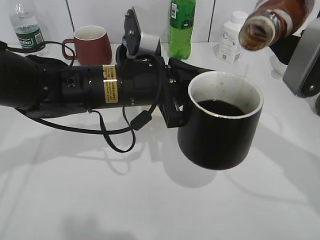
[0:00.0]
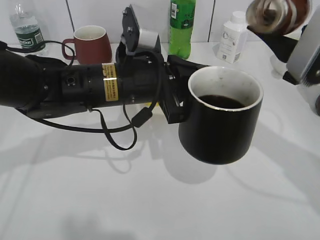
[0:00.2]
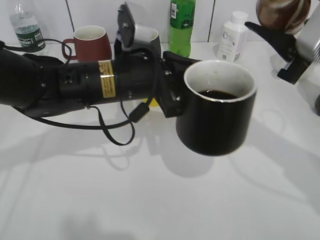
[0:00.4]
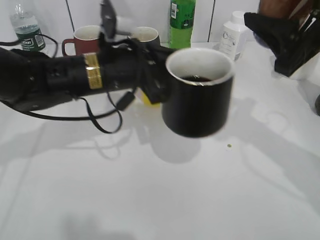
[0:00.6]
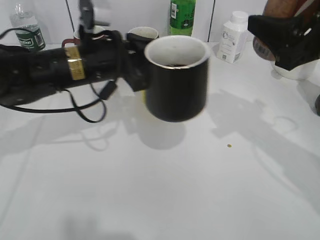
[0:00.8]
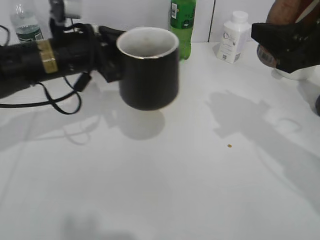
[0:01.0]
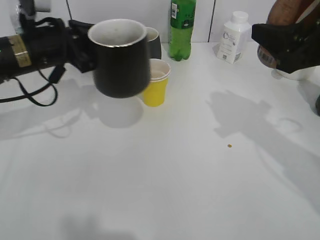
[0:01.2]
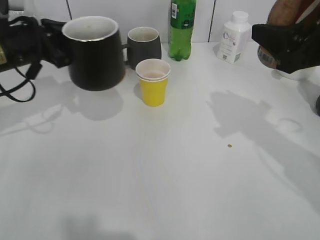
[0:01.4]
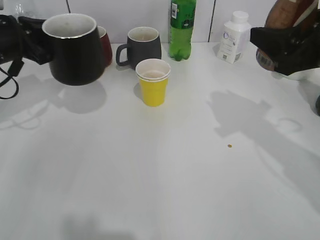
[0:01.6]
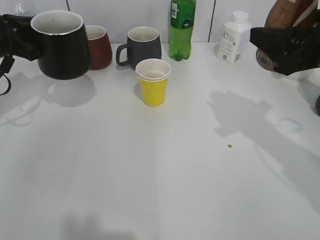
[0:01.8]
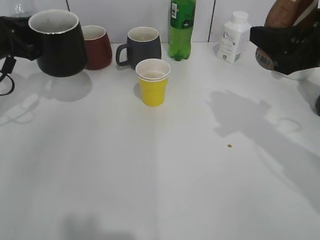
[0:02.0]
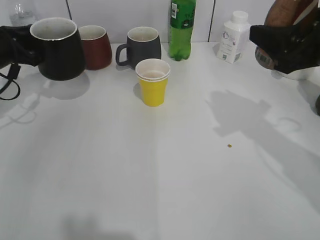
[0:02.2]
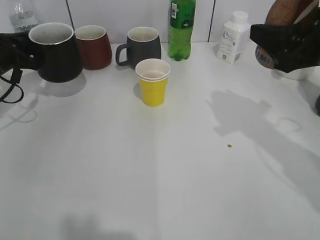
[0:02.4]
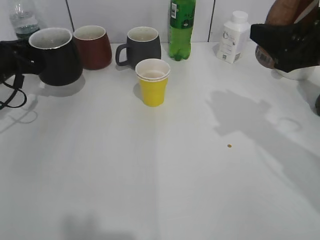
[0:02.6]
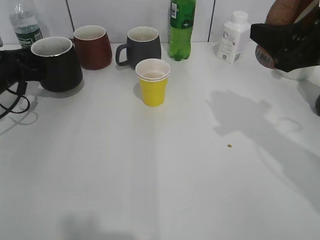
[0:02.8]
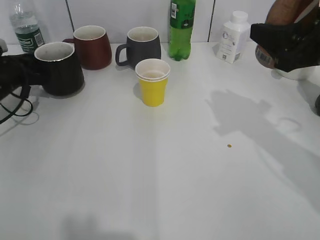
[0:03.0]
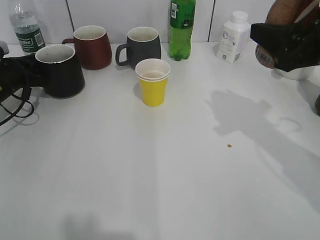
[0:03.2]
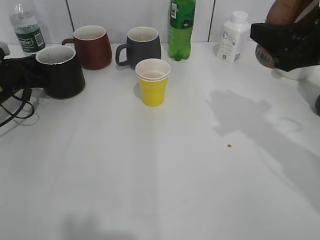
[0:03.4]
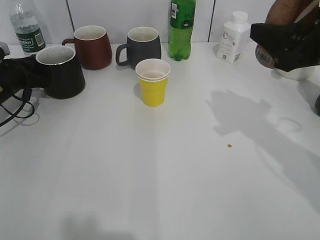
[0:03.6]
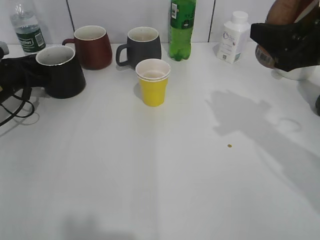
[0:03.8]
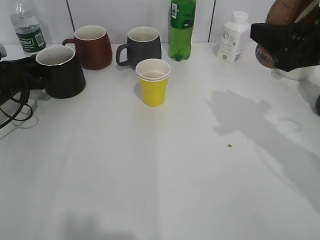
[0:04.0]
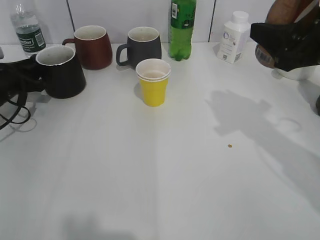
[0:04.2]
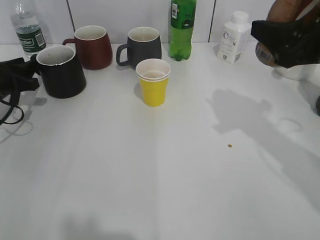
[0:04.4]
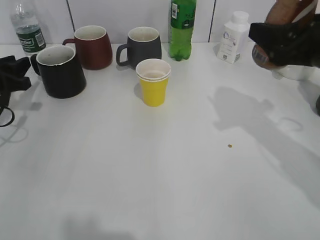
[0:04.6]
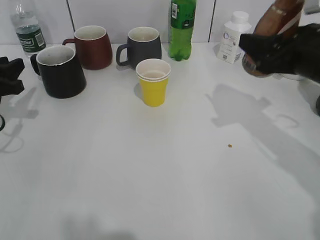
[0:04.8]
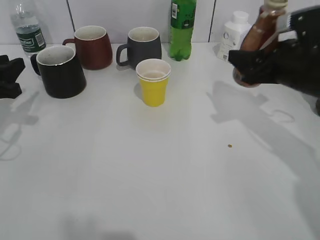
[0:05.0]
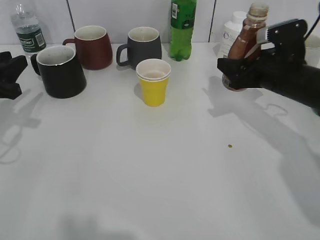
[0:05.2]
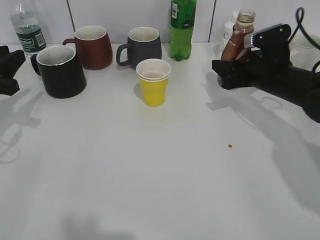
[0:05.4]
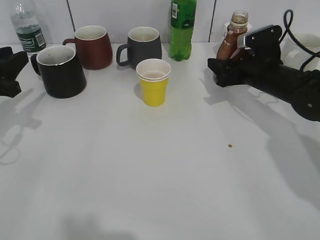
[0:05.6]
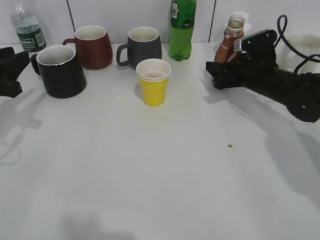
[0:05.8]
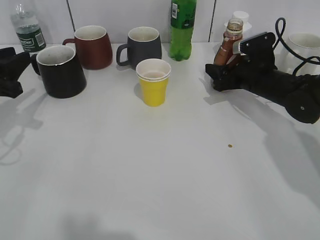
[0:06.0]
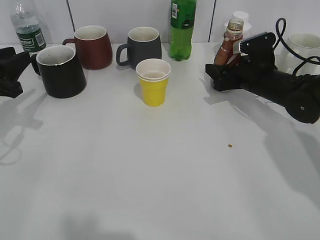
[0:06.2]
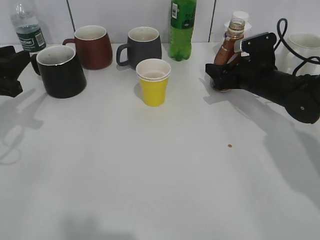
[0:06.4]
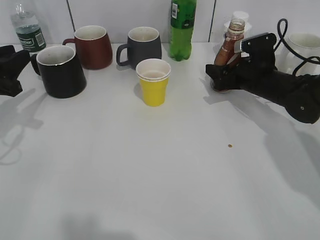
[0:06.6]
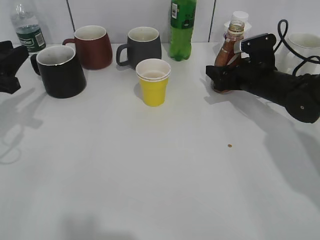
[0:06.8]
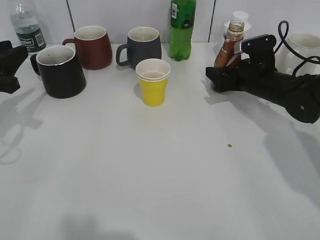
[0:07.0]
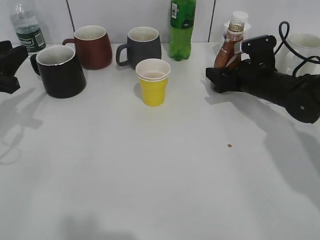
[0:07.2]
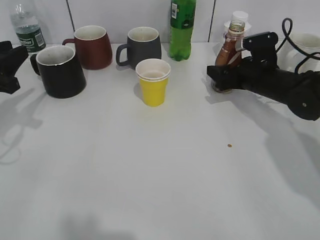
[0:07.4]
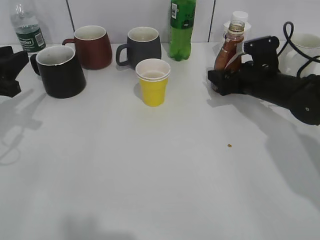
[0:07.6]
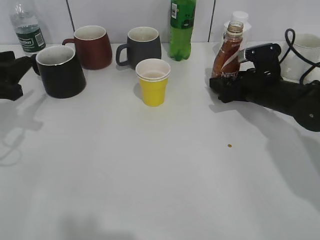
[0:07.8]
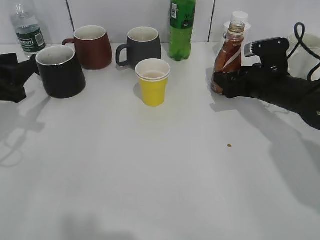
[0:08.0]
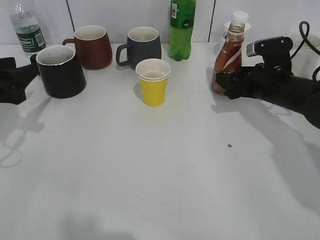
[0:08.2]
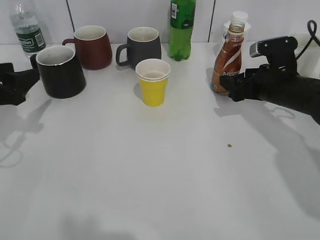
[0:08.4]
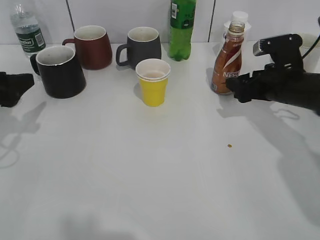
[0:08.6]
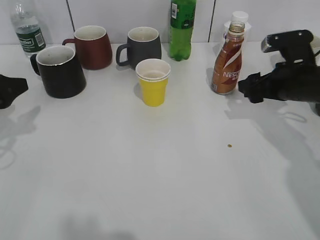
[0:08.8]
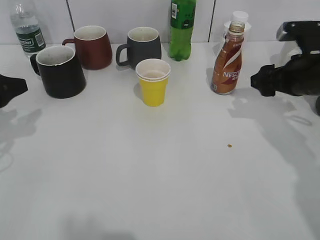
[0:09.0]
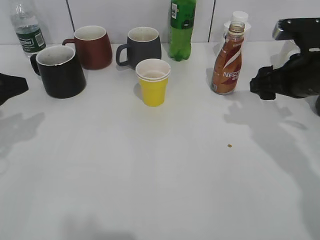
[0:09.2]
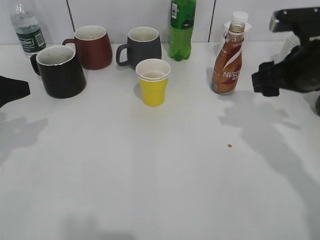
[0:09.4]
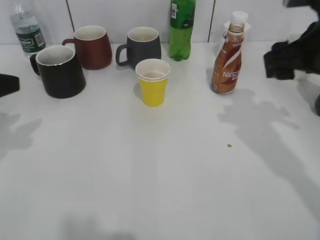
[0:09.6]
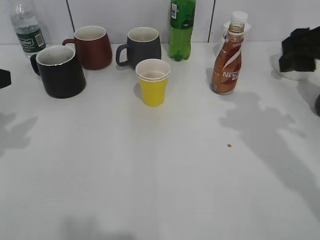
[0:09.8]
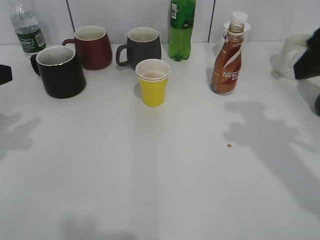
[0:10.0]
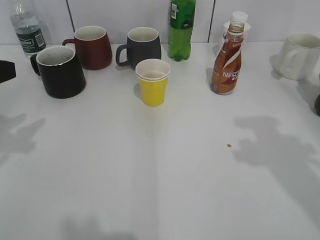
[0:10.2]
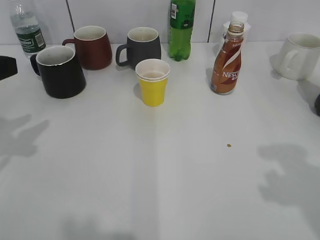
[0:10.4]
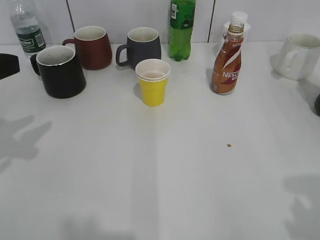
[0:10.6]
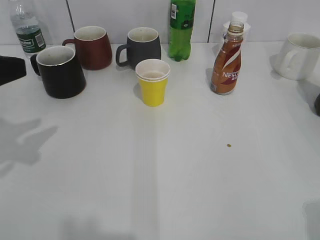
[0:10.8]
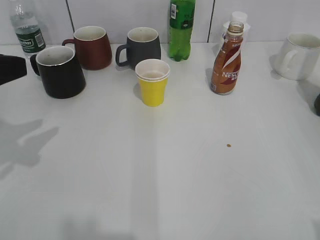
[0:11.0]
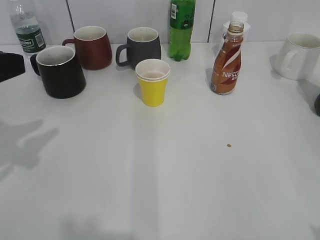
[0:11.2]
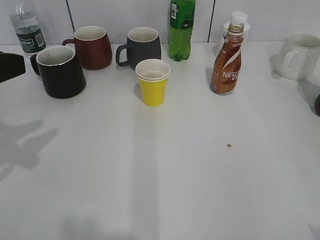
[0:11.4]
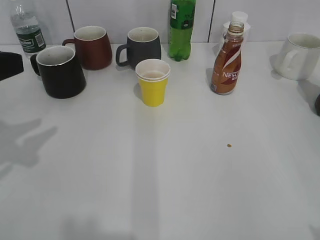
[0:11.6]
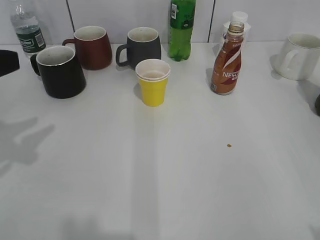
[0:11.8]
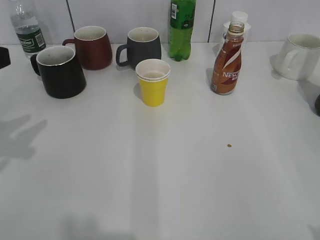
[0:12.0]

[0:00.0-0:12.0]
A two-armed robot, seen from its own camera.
Step, 0:00.2 to 0:04.4: Place the black cup on the table with left gripper.
Step, 0:04.8 to 0:08.0: Place the coffee bottle on the table with right gripper.
0:00.0 to 0:01.6: The left gripper moves to the left and forward, approximately 25 cm.
0:01.6 to 0:03.0: The left gripper goes approximately 10 cm downward and to the left.
0:03.0 to 0:04.4: The left gripper opens its fingers.
0:04.4 to 0:06.0: The right gripper heads downward and forward, covering roughly 20 cm. Meanwhile the left gripper heads backward and upward, covering roughly 10 cm.
0:06.0 to 0:07.6: The right gripper opens up.
0:07.6 to 0:09.0: The right gripper goes about 10 cm backward and upward, while the left gripper opens.
0:09.0 to 0:10.4: The right gripper shifts approximately 25 cm backward and upward, while the left gripper shifts roughly 10 cm upward and backward.

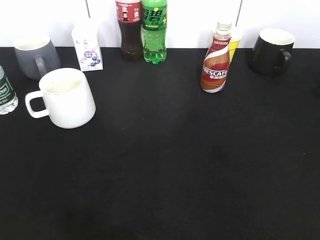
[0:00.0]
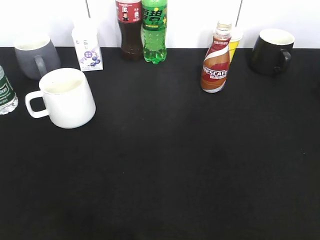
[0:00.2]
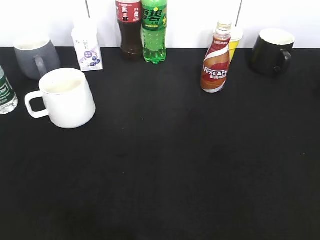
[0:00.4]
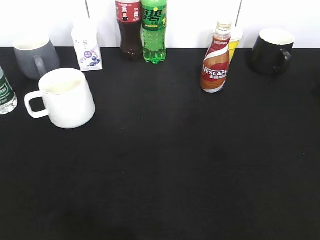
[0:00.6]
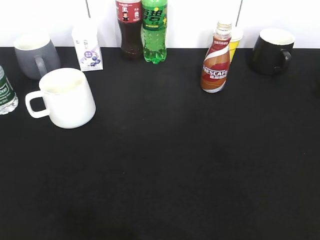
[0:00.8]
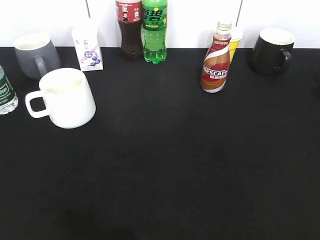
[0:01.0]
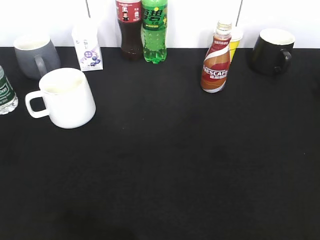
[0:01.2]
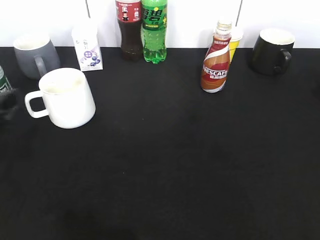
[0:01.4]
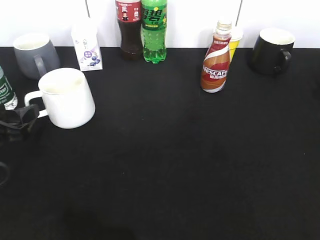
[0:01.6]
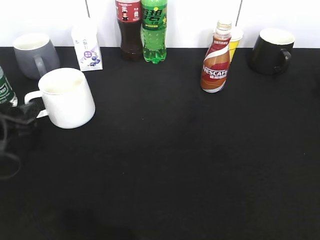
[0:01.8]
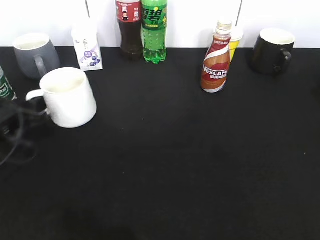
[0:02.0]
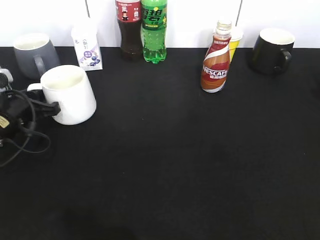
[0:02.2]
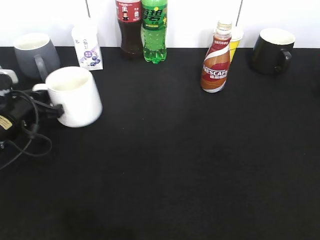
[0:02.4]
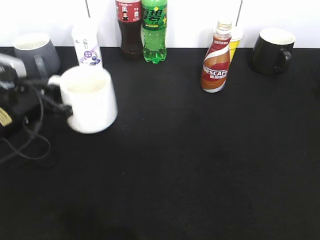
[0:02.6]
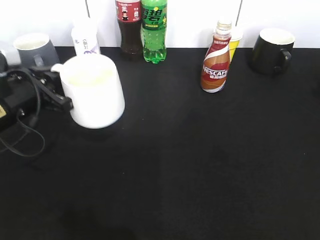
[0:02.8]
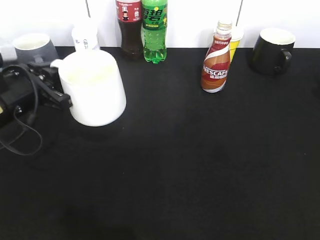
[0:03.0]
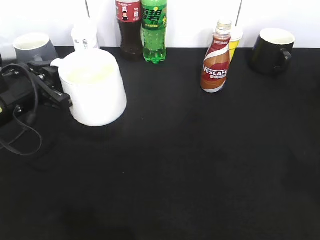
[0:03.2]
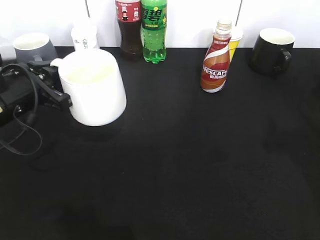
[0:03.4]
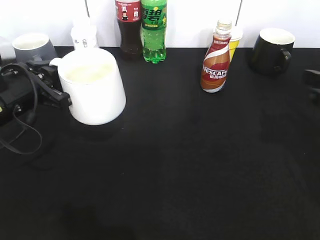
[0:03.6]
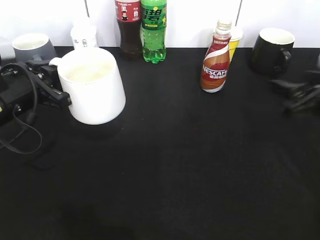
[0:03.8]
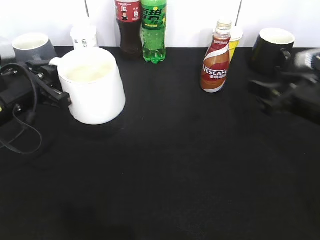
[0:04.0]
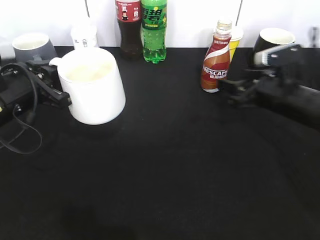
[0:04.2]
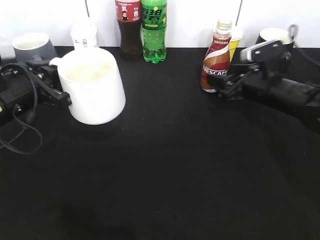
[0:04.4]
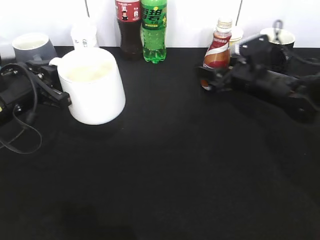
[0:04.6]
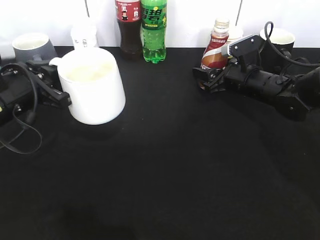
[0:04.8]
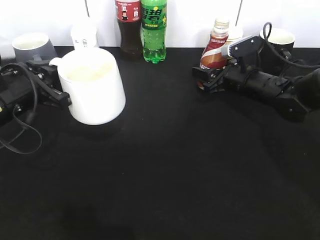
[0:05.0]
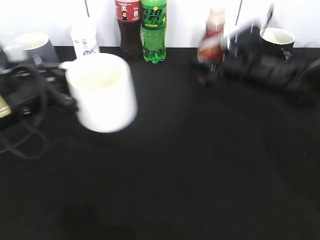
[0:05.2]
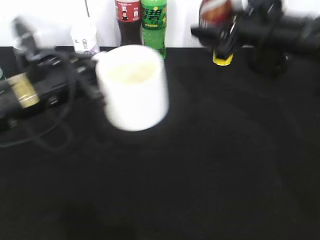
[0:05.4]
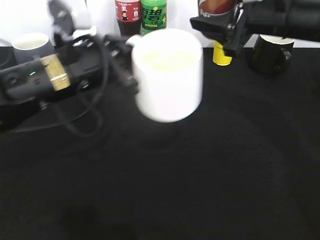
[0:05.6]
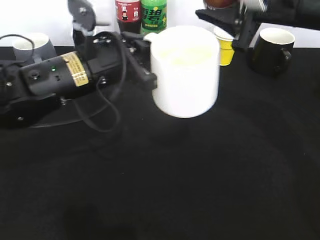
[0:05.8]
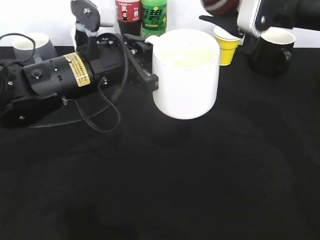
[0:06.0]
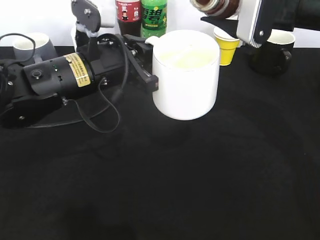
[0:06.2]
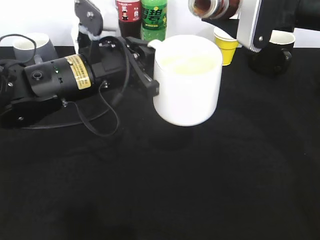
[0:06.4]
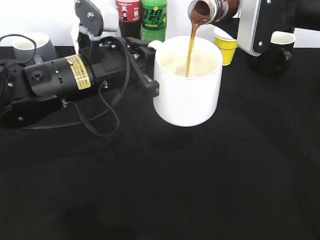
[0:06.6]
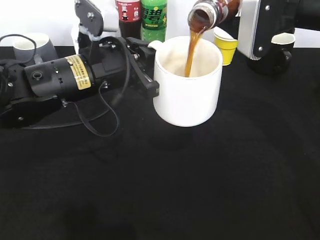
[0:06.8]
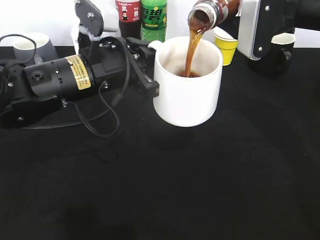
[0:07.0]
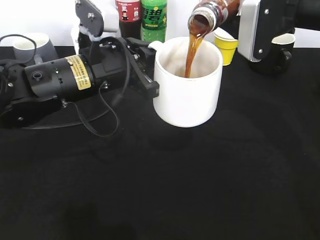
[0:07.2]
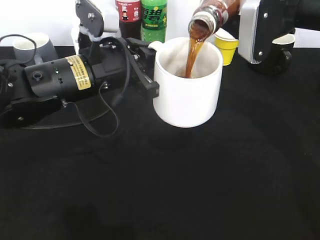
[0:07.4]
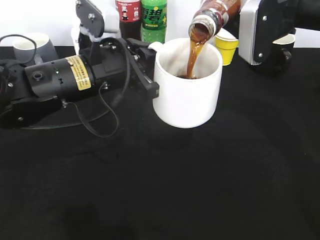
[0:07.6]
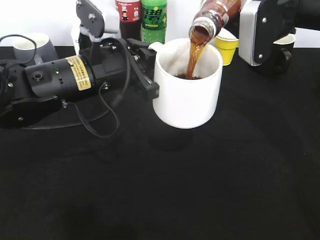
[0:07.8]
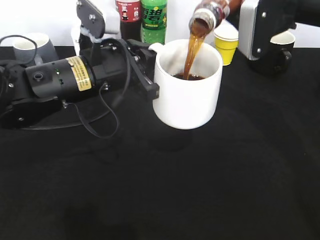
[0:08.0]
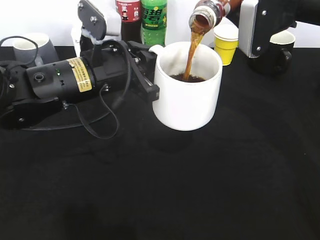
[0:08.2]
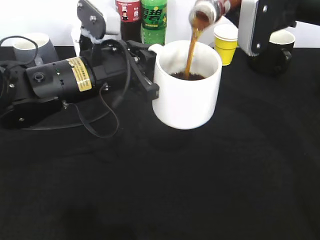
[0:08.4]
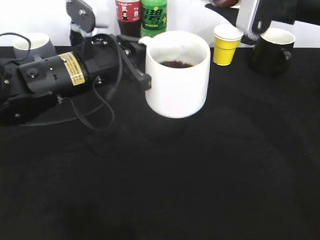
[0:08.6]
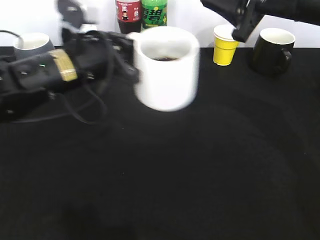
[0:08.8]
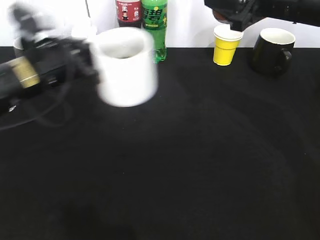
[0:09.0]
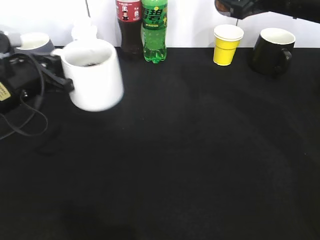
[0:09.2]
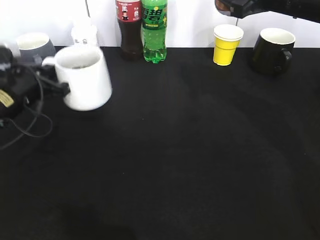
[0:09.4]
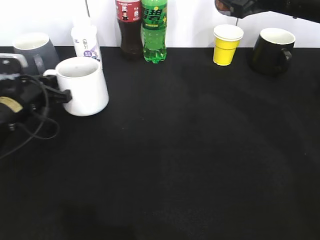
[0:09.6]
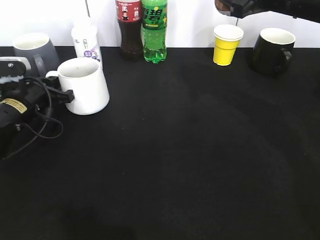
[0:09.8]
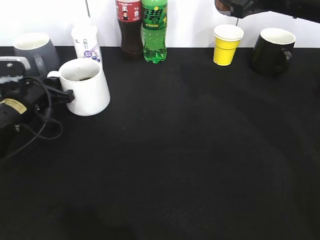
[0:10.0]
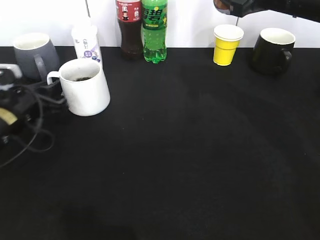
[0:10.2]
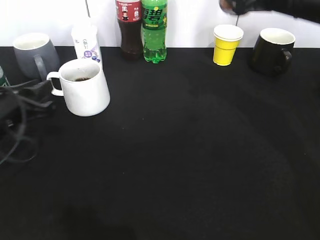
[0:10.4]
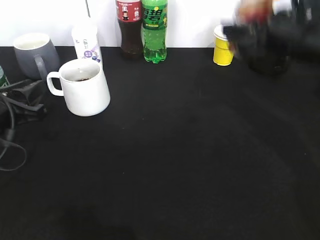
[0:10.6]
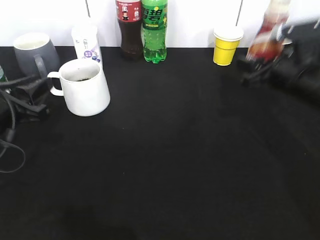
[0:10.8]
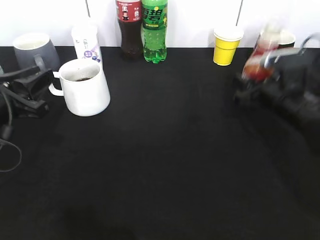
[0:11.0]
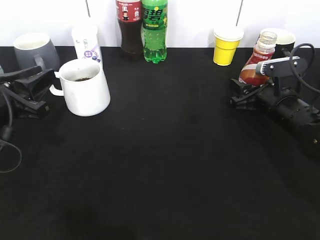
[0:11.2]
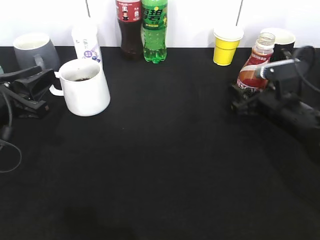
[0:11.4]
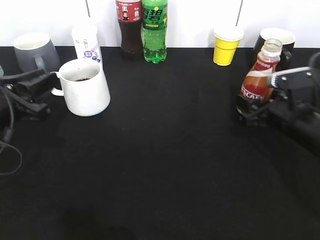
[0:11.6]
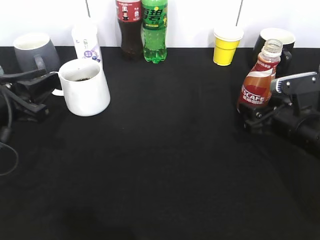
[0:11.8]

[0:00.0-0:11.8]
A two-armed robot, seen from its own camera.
Step, 0:00.6 to 0:02.2: Grasp the white cup with left gripper.
Step, 0:02.4 to 0:02.8: Lift the white cup with left gripper.
Step, 0:03.0 to 0:04.8: Grasp the bottle with coffee with right gripper.
Step, 0:05.0 to 0:08.6: Pour the coffee from bottle to cup with right gripper.
Step, 0:08.8 to 0:10.2: Place the white cup on the table with left gripper.
0:00.0 to 0:01.4: The left gripper travels forward and downward by about 20 cm, and opens.
0:01.4 to 0:03.0: The left gripper is displaced forward and to the right by about 10 cm, and closes.
0:03.0 to 0:04.4: The right gripper moves forward and downward, approximately 40 cm.
0:04.4 to 0:06.0: The left gripper travels to the right by approximately 15 cm; the right gripper shifts about 15 cm upward.
0:08.8 to 0:10.4: The left gripper moves to the left and downward, approximately 15 cm.
0:10.4 to 0:11.8: The right gripper moves downward, roughly 20 cm, while the left gripper changes place by roughly 5 cm.
